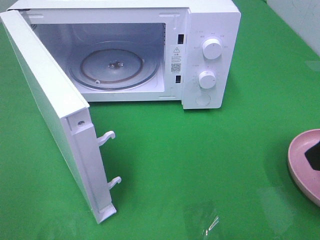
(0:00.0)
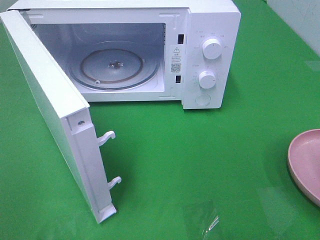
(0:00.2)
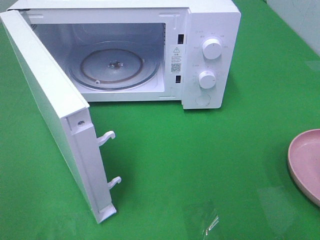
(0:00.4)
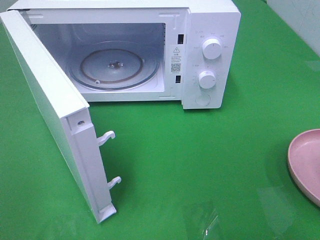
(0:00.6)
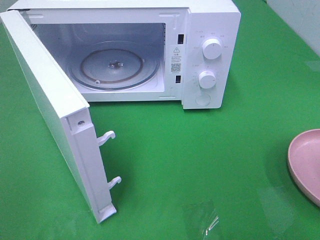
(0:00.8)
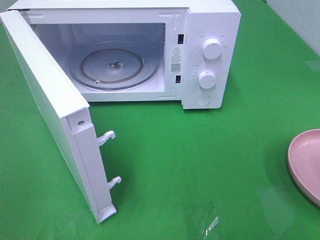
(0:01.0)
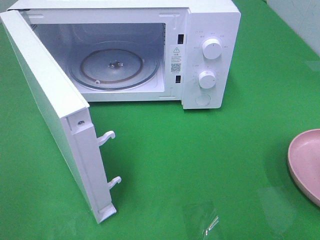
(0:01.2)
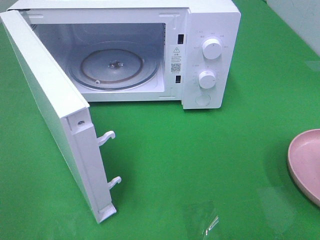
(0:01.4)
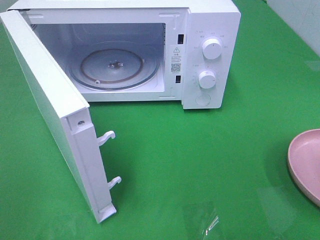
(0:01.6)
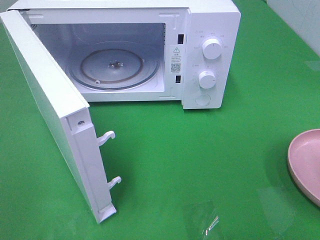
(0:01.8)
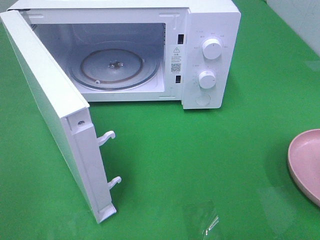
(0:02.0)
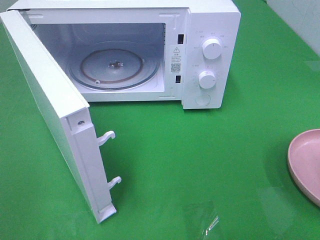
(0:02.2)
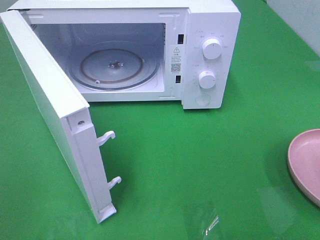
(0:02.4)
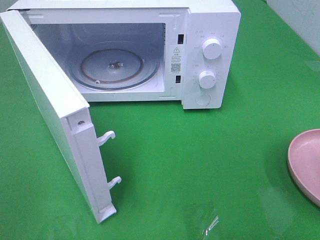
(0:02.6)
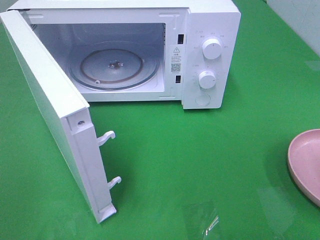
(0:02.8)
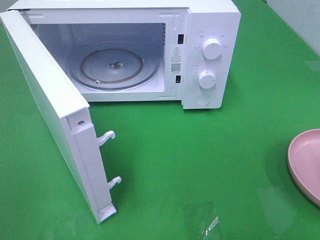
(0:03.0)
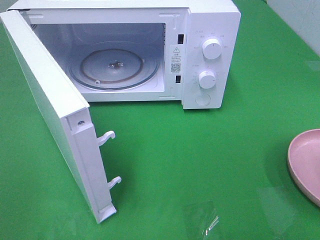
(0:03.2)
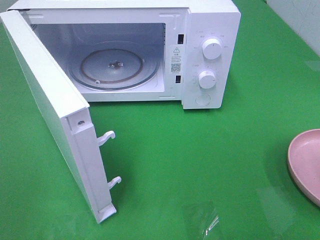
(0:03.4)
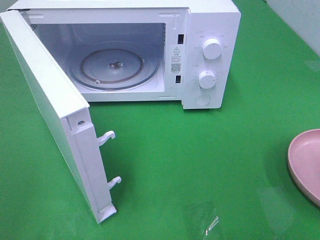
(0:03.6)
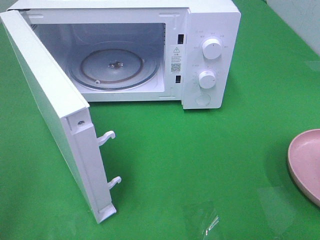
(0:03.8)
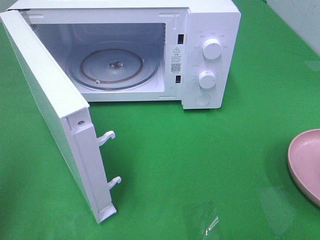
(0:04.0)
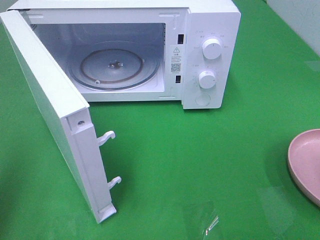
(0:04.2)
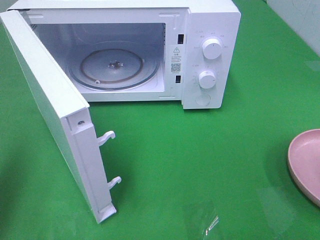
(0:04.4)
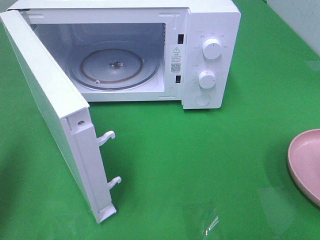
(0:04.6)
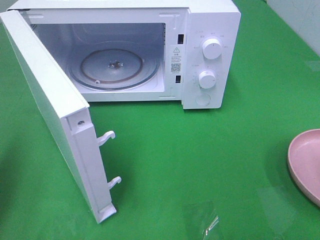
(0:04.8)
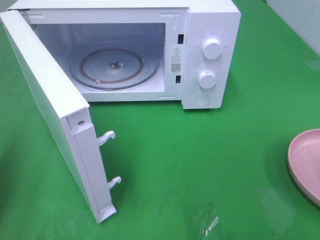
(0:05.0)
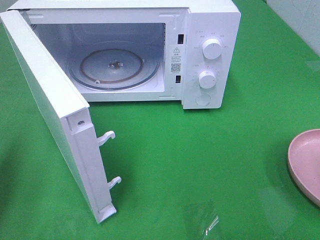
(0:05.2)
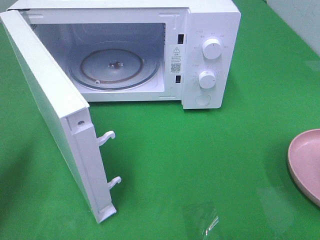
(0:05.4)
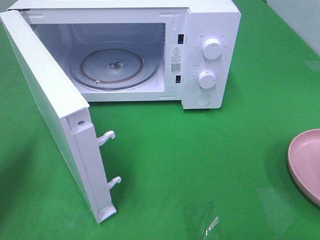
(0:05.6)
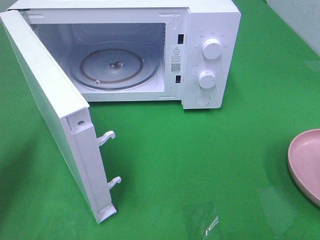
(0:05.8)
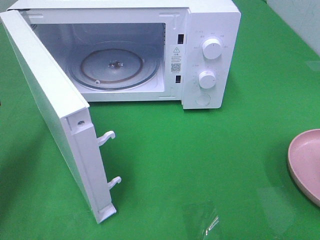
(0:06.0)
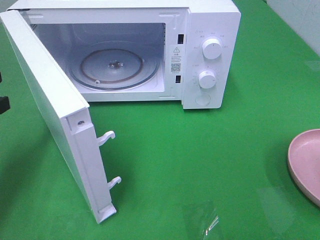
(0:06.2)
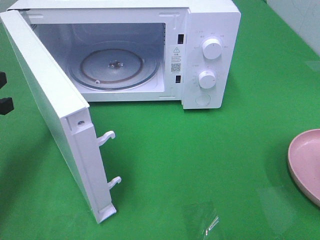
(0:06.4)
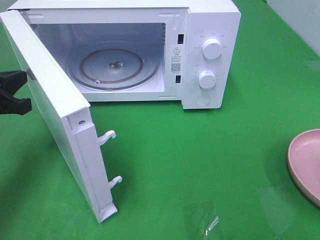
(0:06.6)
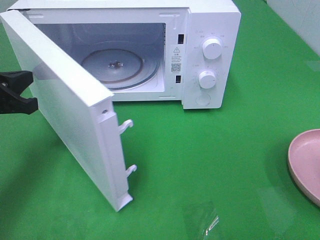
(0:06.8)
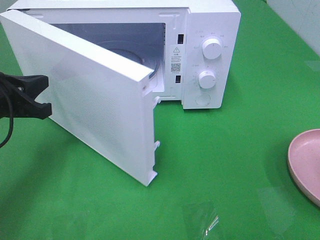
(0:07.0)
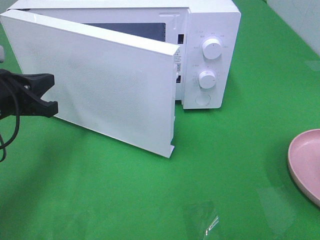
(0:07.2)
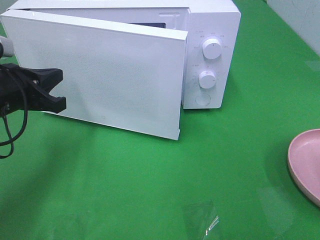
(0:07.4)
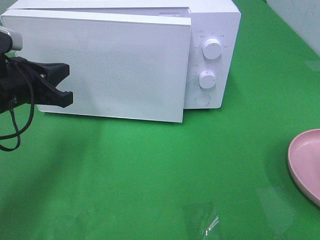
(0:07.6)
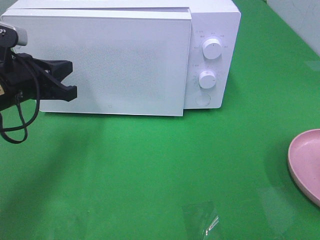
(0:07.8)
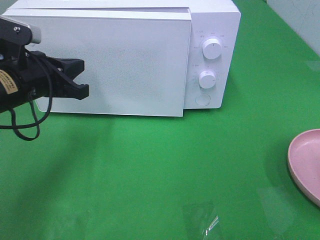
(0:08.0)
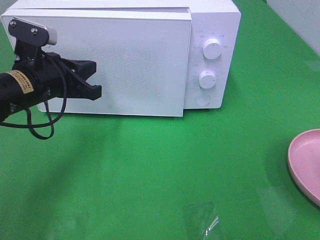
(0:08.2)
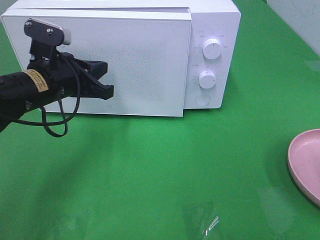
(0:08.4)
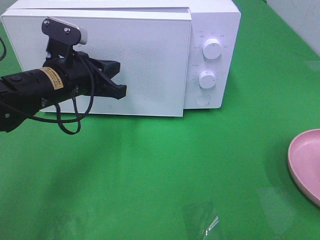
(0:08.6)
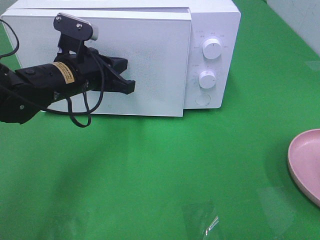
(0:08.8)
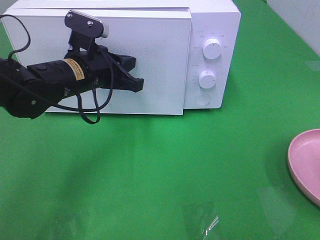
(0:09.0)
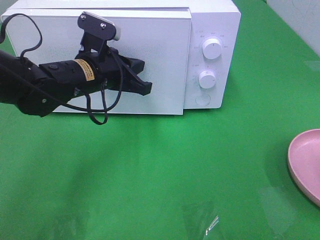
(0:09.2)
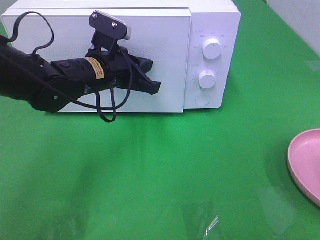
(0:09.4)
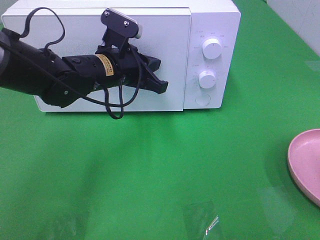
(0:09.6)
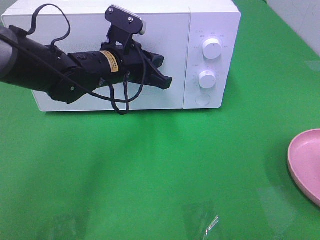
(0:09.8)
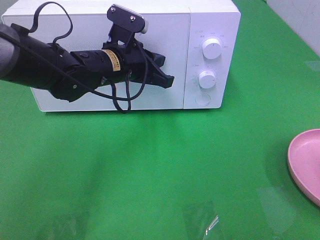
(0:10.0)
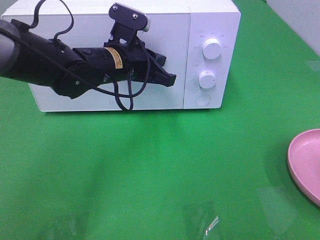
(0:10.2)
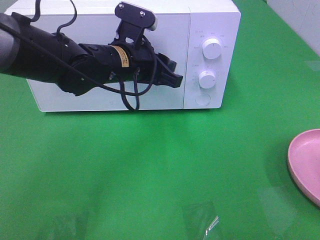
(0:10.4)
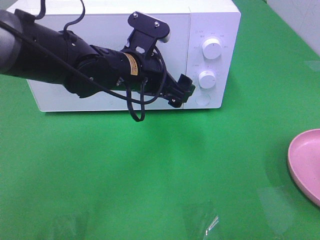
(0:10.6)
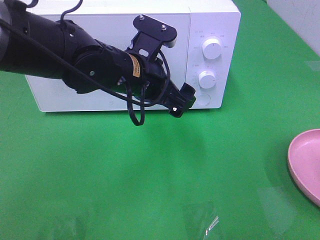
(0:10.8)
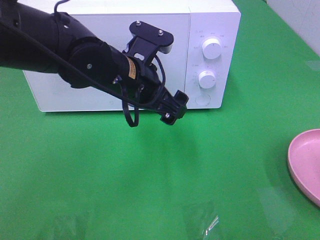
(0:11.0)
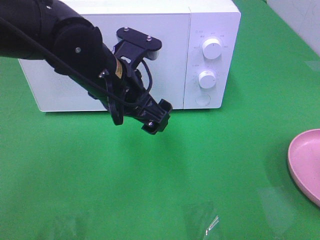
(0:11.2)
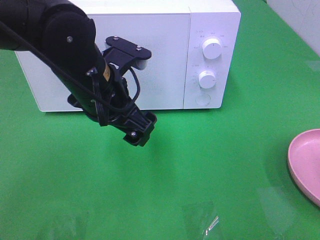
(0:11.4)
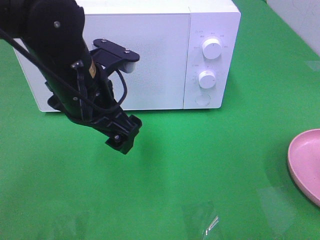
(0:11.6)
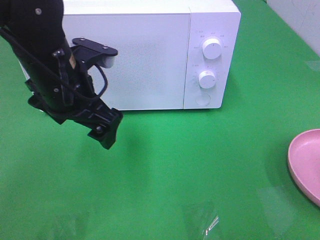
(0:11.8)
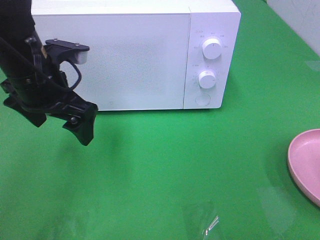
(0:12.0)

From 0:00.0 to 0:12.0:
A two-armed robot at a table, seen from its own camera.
Task of the whole recording: Heat the burger.
Step, from 0:00.0 to 0:10.2: Left hand: close the microwave door.
From 0:00.0 to 0:01.6: The right gripper goes approximately 15 cm backward and to the right.
From 0:01.6 to 0:03.0: The two grippers keep their place.
From 0:03.0 to 0:04.4: The left gripper heads forward, covering some 15 cm, and closes up.
From 0:06.0 to 0:07.6: The left gripper shifts some 10 cm to the right.
From 0:07.6 to 0:09.0: The left gripper moves to the right and forward, approximately 10 cm.
From 0:09.0 to 0:10.4: The left gripper moves to the right, roughly 5 cm, and opens.
From 0:10.4 to 0:12.0: The left gripper heads to the left, covering some 10 cm, and opens its fingers.

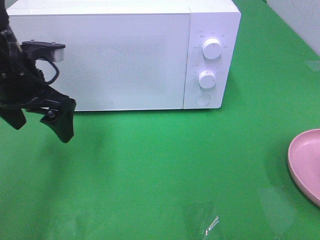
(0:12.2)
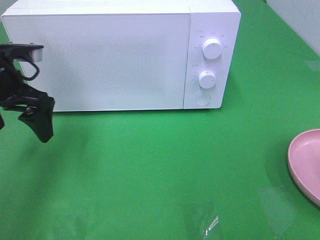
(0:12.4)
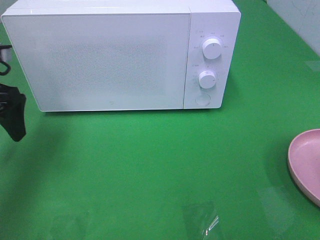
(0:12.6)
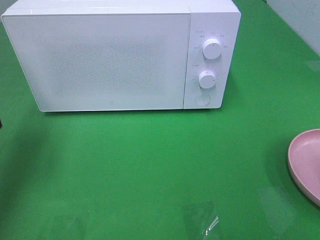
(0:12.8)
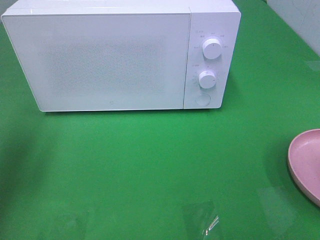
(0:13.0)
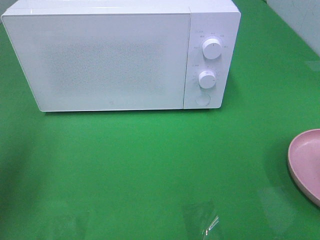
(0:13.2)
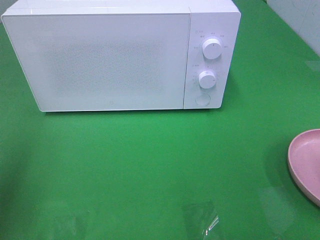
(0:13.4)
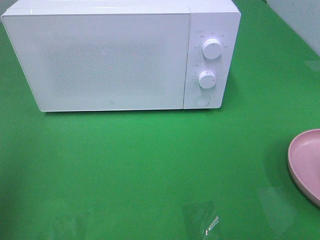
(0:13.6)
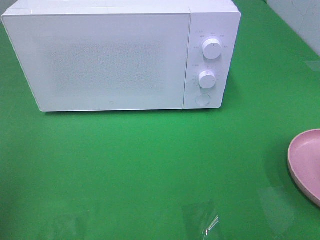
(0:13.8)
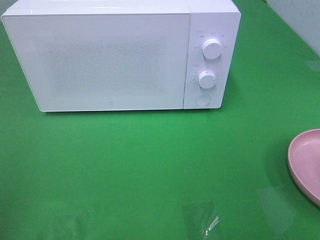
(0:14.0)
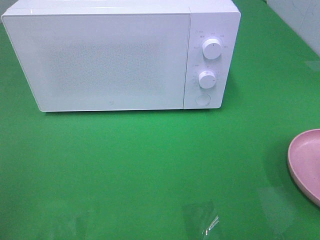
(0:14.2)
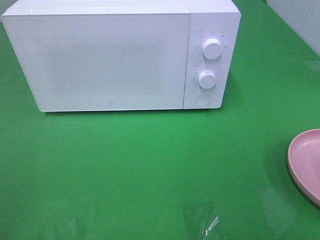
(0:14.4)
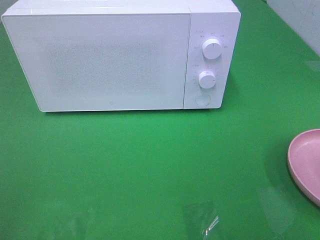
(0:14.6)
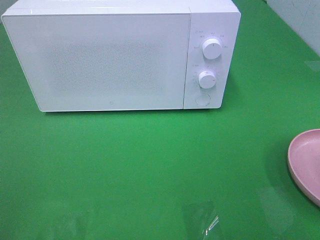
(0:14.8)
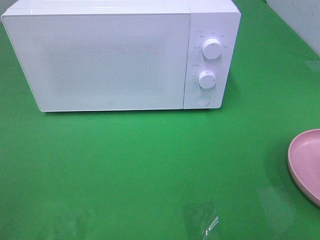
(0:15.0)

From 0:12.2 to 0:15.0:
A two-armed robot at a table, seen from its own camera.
Task of the whole recording: Heat the burger.
From 0:12.2 to 0:13.6: The left gripper travels backward, to the left and upward by roughly 25 cm.

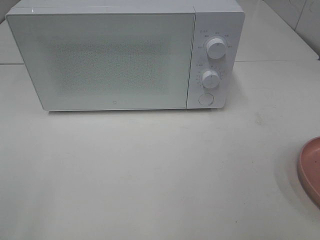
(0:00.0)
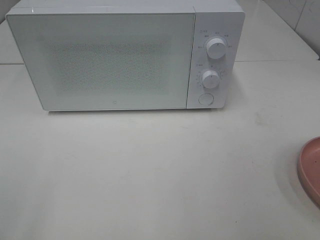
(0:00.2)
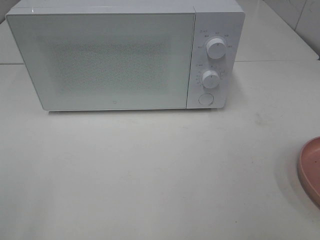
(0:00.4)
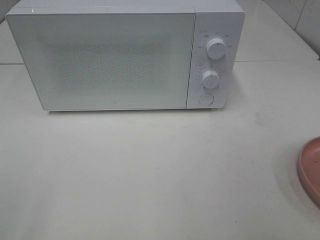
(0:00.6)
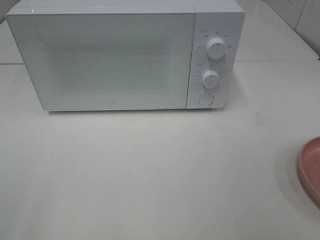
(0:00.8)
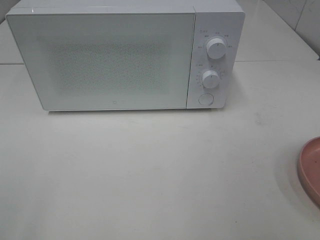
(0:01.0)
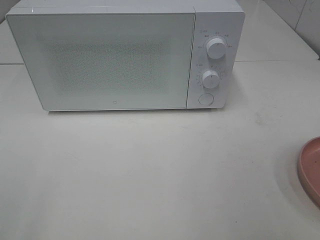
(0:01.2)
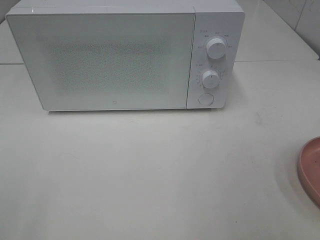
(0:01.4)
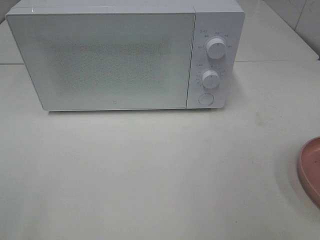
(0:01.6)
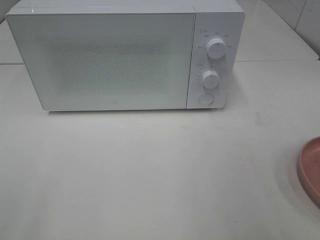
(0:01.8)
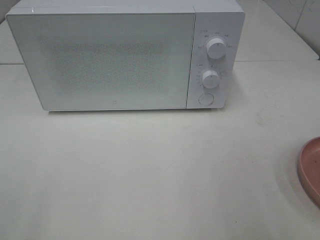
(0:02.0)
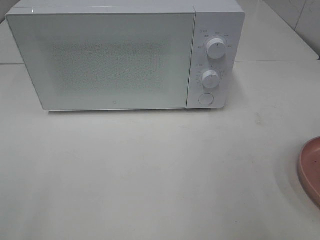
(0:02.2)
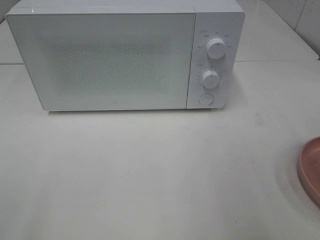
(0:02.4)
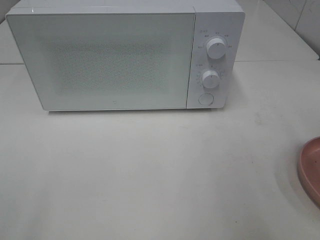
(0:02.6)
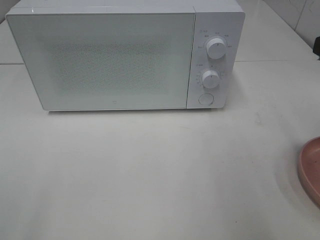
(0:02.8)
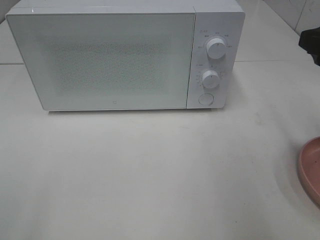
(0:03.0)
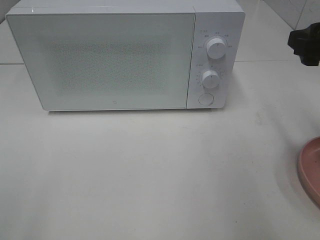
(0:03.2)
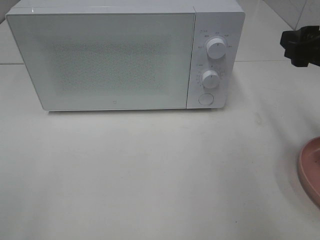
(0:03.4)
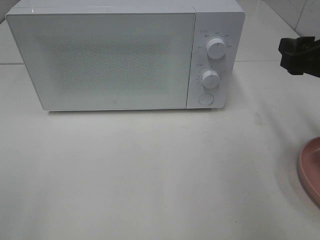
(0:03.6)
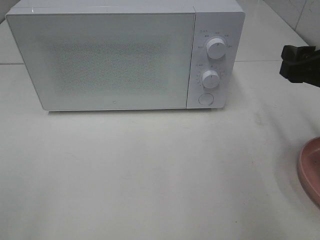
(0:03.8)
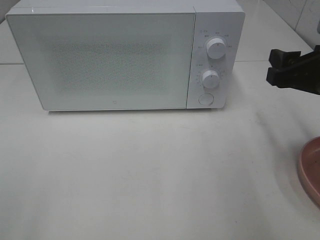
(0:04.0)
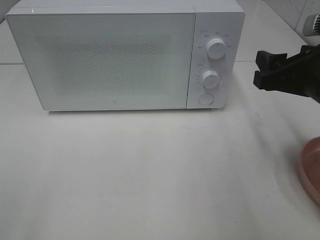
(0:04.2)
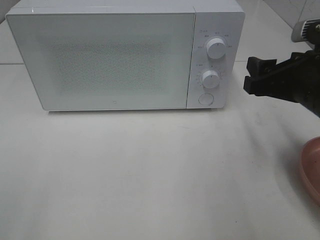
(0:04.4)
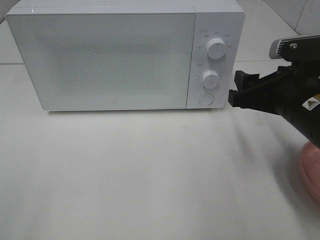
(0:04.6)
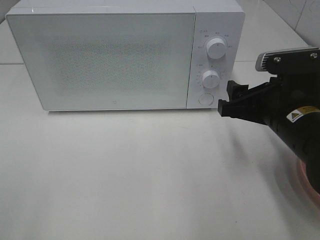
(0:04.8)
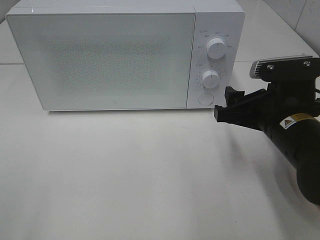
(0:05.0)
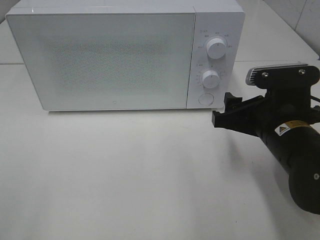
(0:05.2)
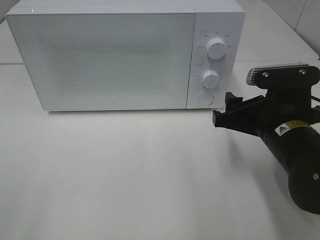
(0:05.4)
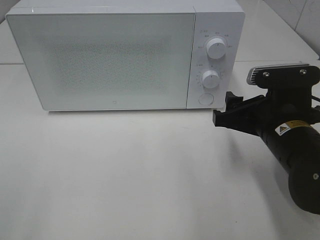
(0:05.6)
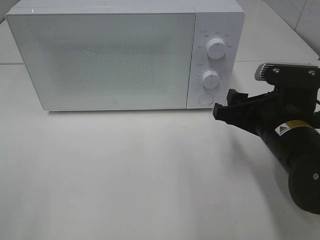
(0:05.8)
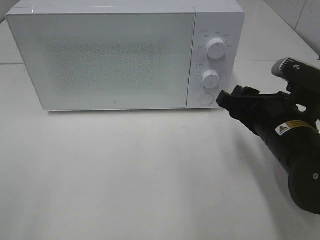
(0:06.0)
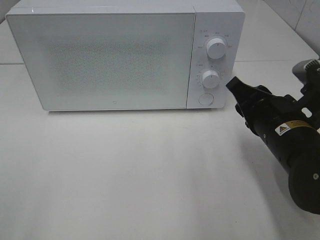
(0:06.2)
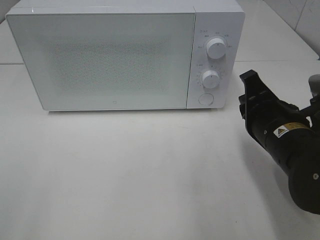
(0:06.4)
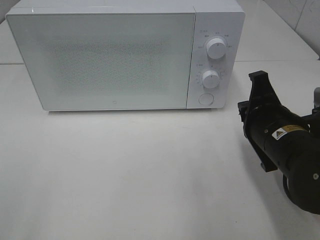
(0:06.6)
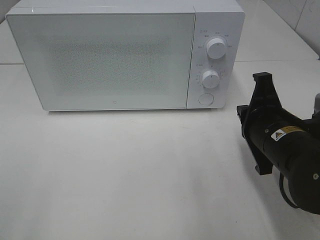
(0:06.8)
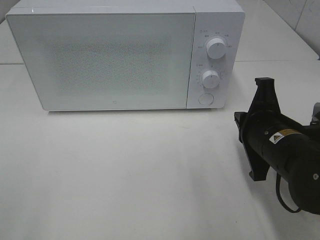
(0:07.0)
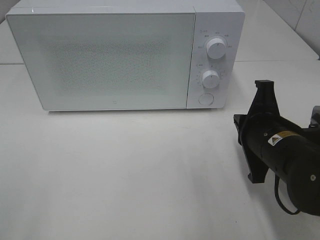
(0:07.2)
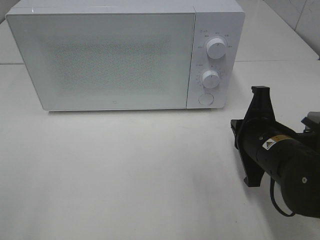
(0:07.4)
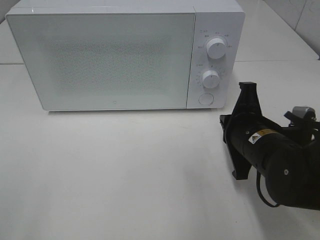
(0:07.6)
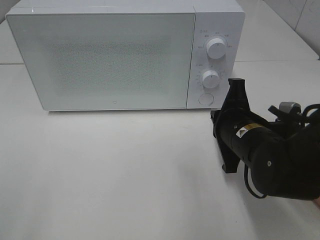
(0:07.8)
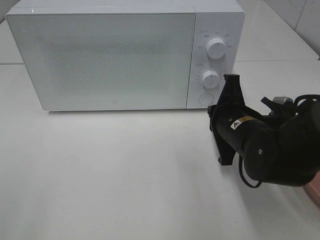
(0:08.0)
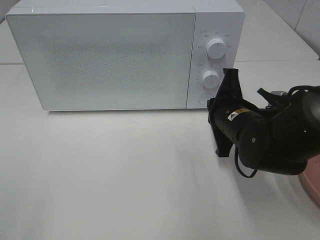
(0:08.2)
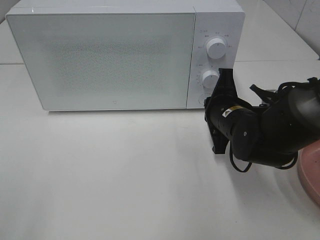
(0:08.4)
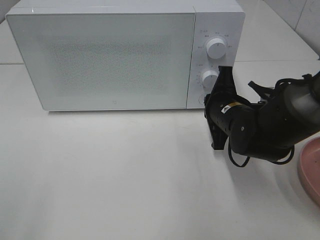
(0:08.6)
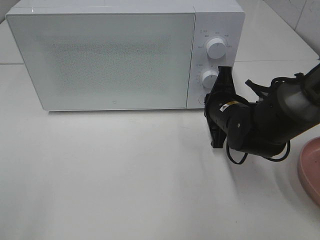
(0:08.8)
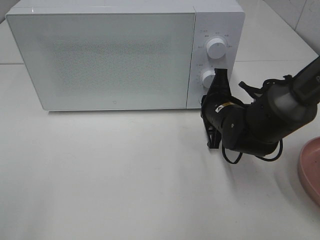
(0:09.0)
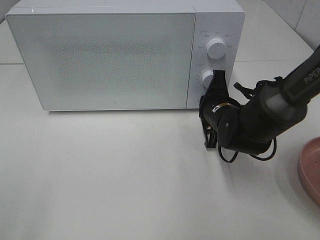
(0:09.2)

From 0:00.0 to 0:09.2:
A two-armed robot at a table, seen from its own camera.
Task of the whole recording: Heat the burger.
From 0:01.6 to 0:03.0: The right gripper moves forward, some 15 cm.
From 0:03.0 to 0:04.6: The right gripper heads downward and to the left, covering roughly 10 cm.
From 0:04.6 to 0:06.2: The right gripper closes.
From 0:06.2 to 0:07.6: The right gripper closes.
From 0:07.6 to 0:09.2: The right gripper is displaced forward by approximately 10 cm.
